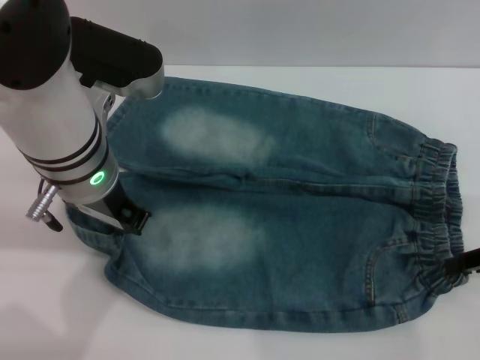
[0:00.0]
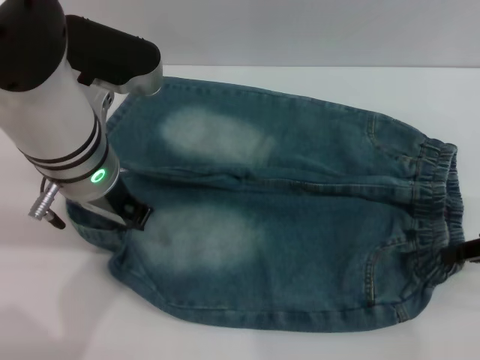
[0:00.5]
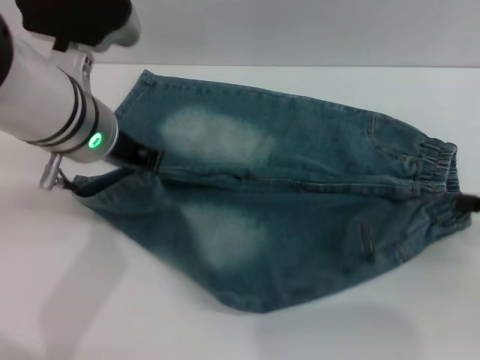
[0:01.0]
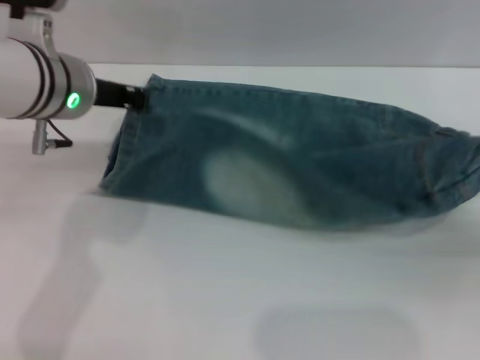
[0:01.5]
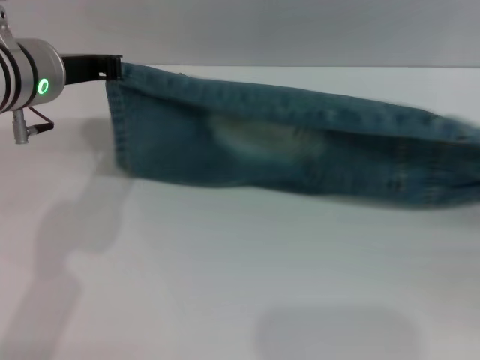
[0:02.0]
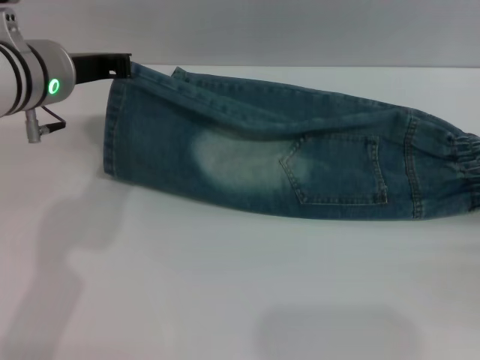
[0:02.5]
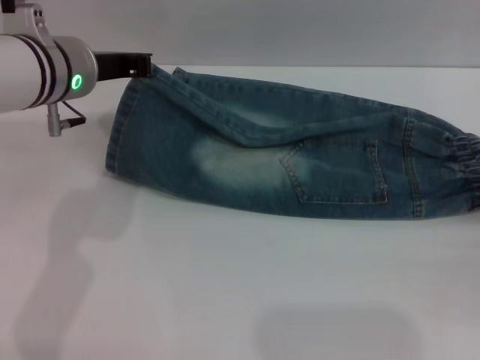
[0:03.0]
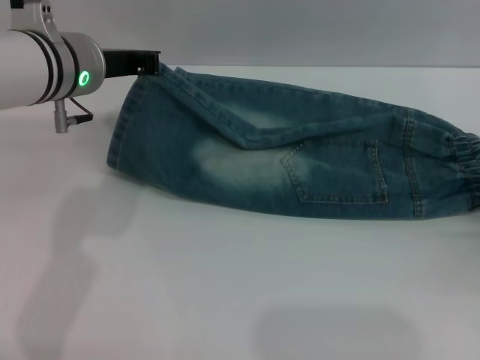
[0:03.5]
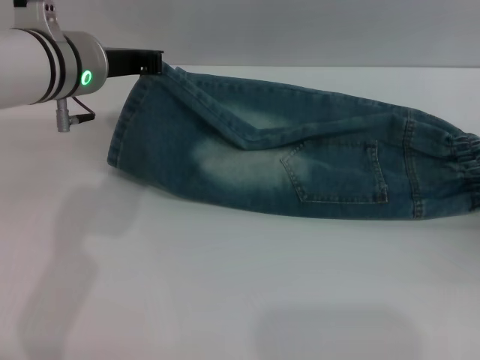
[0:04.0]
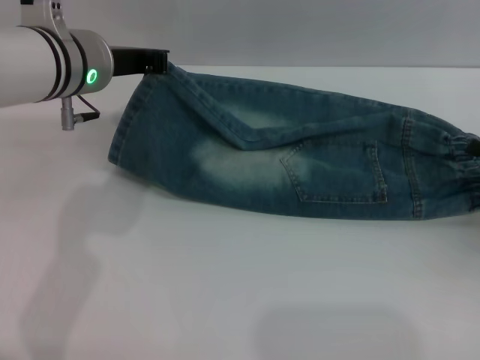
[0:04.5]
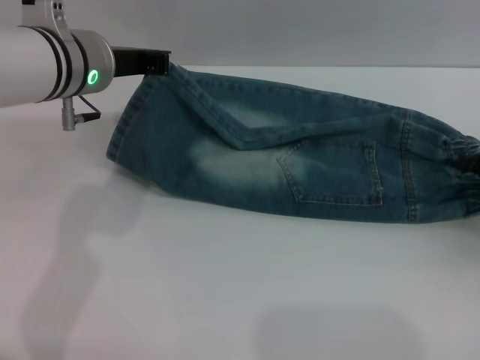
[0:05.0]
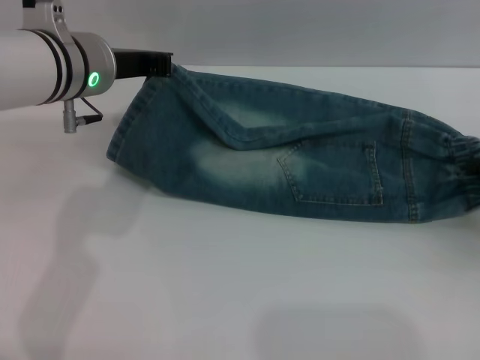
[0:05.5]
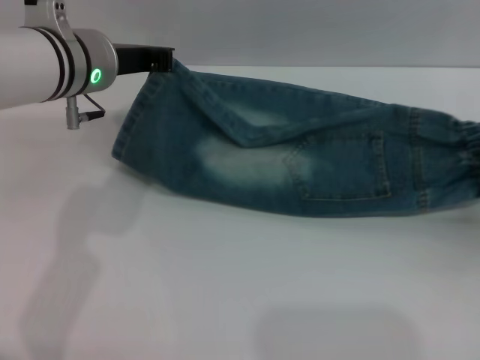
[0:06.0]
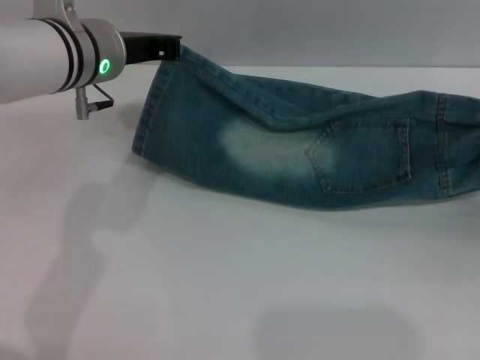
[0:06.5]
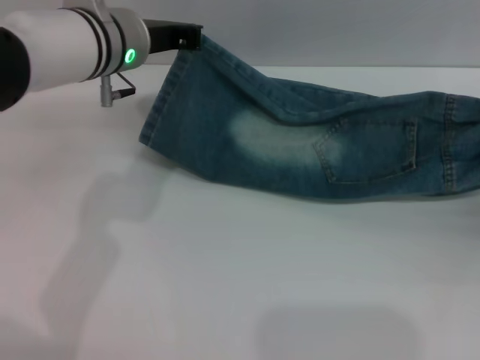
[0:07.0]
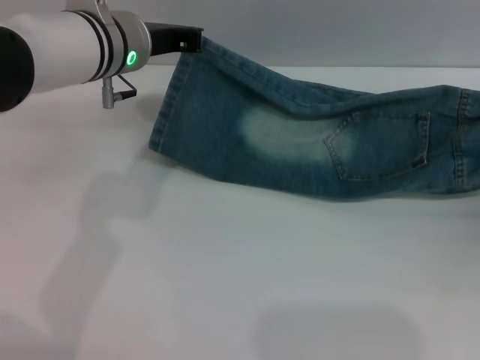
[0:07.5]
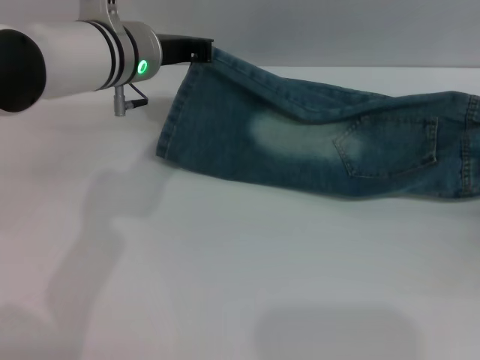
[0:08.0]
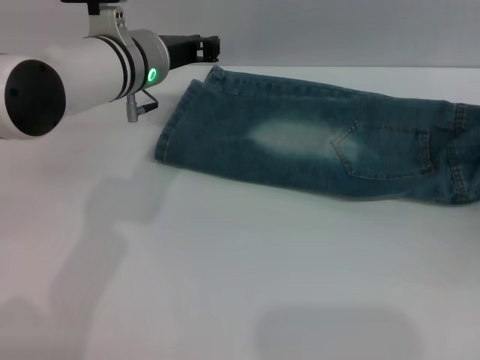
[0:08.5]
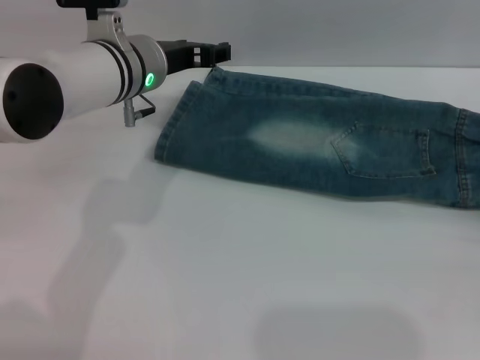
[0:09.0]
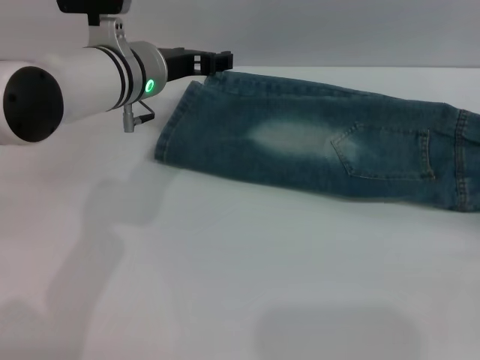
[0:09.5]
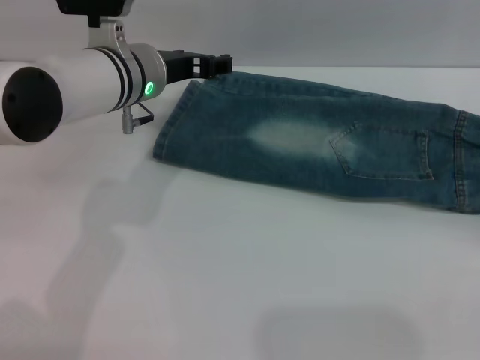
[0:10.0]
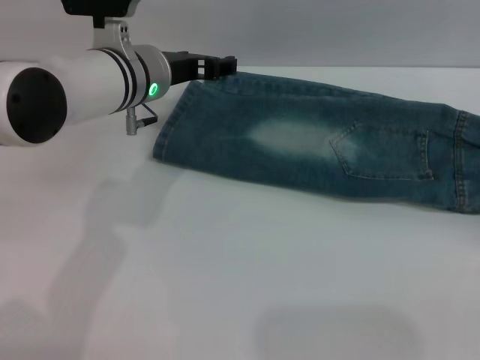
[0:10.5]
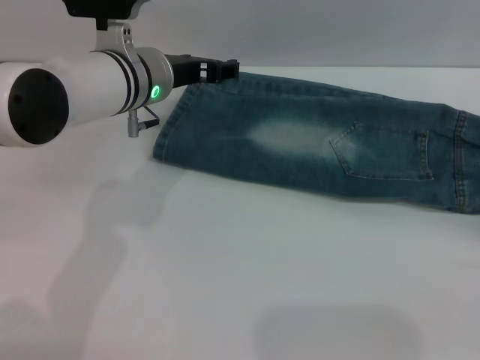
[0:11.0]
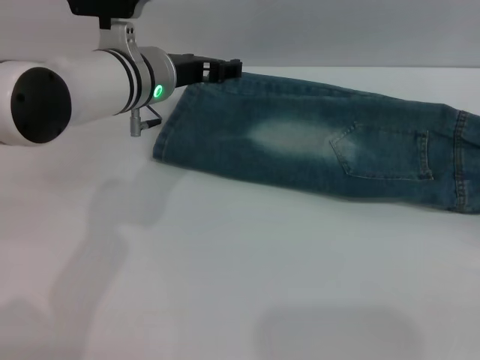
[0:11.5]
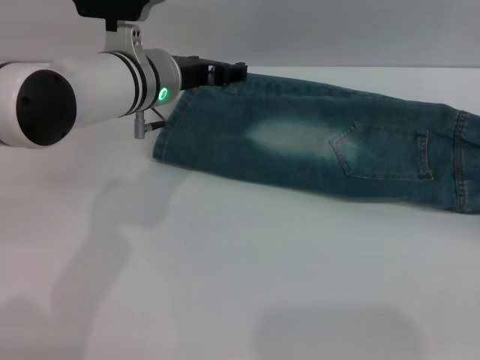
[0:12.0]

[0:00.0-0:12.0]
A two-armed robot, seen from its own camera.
Step, 0:00.0 to 0:08.5: Fold the bottom of the pants upward with both grippers.
0:00.0 to 0:02.0: The right gripper shifts approximately 10 cm to the right and backward. The left gripper is displaced to the left by approximately 5 cm.
0:02.0 to 0:04.0: The right gripper moves forward, about 5 cm, and opens its fingers.
0:04.0 to 0:06.0: The right gripper closes its fingers.
0:08.0 to 0:10.0: The left gripper opens its fingers. Meanwhile the right gripper goes about 10 cm backward, and opens its fingers.
0:10.0 to 0:12.0: The grippers make only small movements.

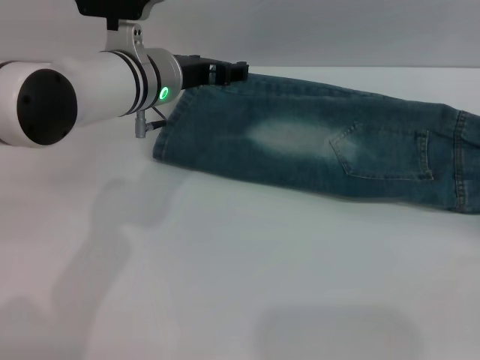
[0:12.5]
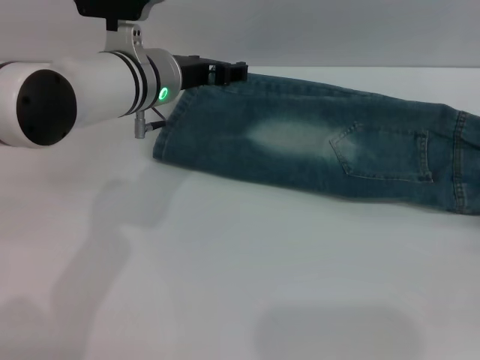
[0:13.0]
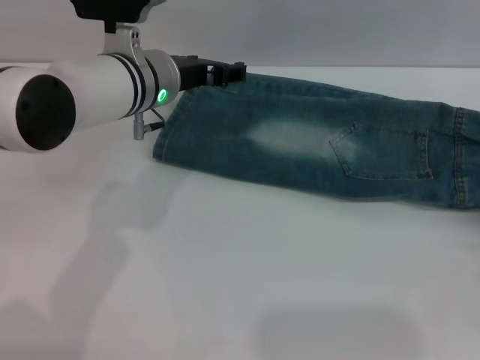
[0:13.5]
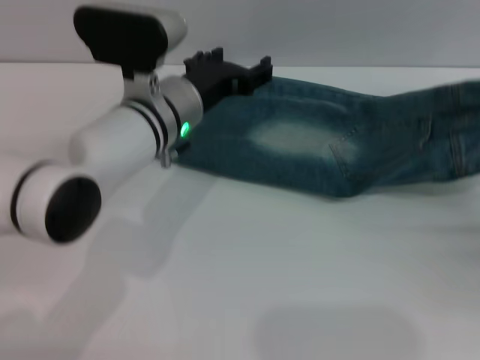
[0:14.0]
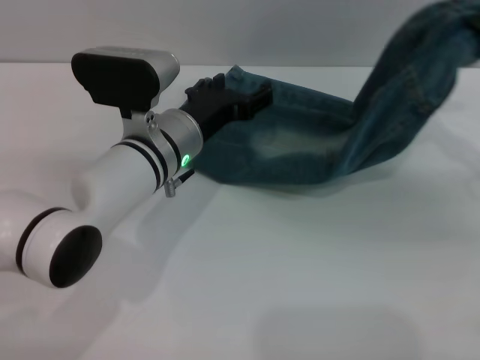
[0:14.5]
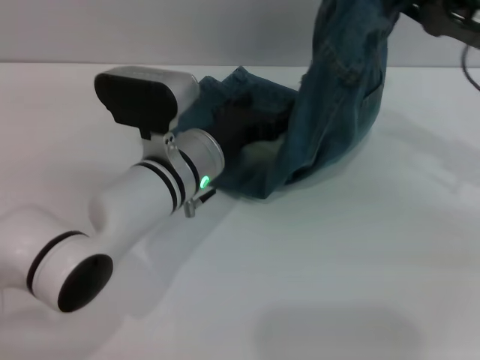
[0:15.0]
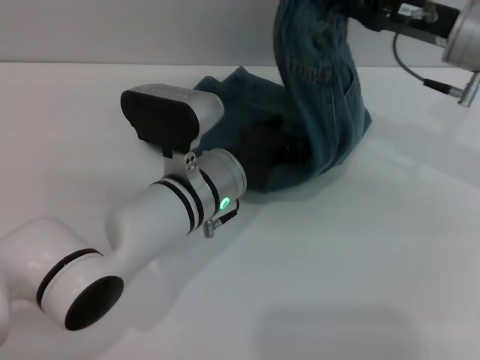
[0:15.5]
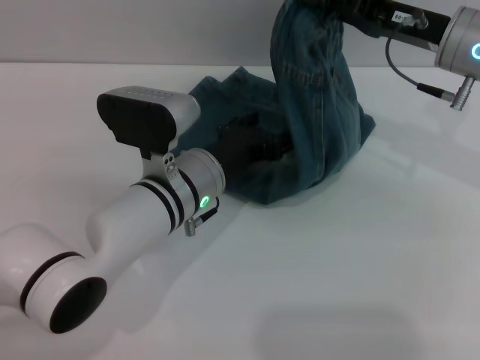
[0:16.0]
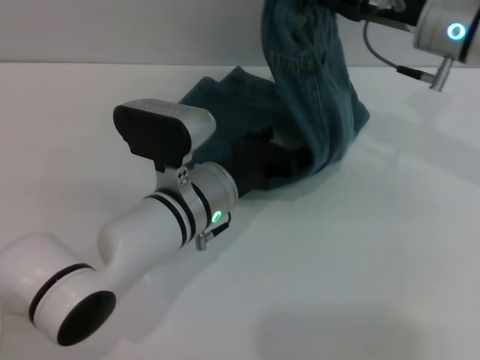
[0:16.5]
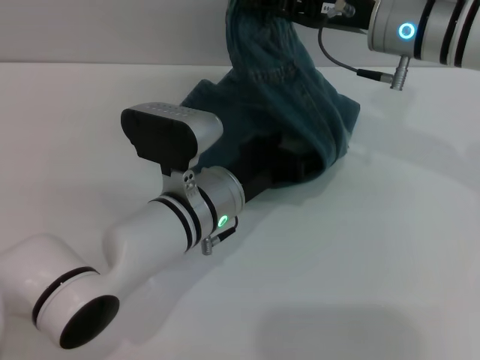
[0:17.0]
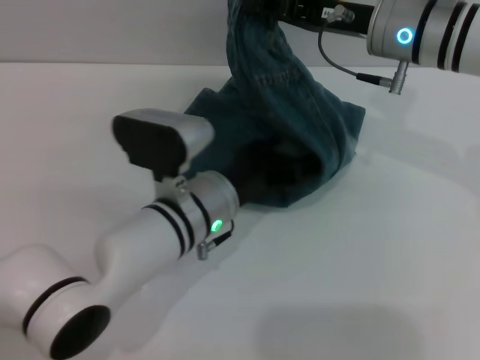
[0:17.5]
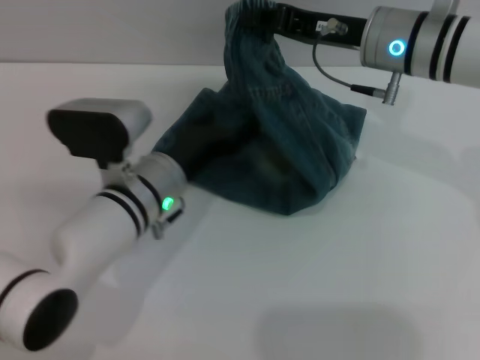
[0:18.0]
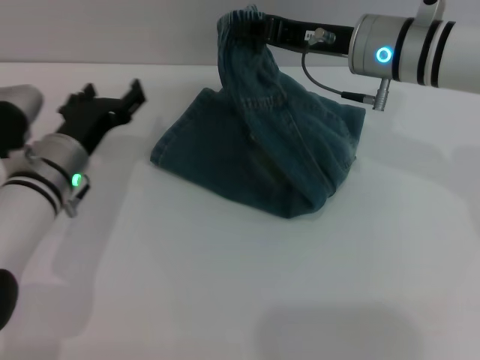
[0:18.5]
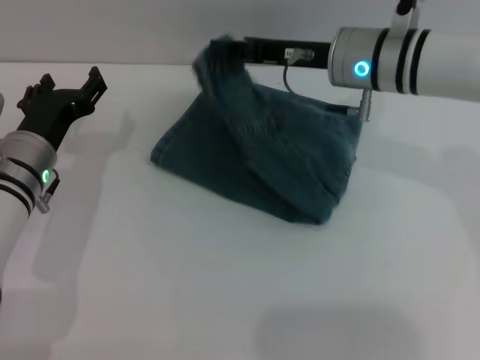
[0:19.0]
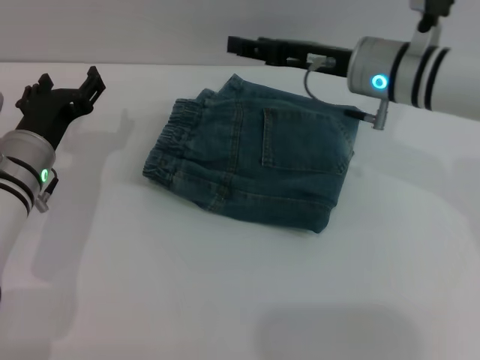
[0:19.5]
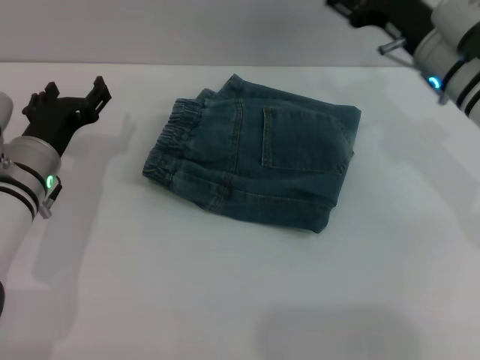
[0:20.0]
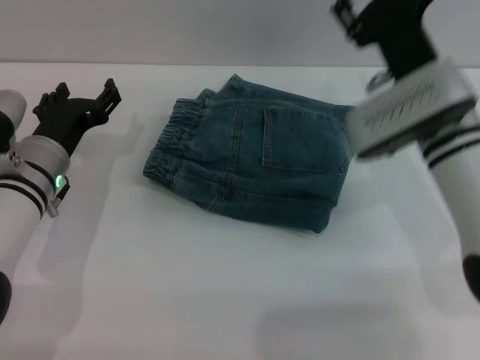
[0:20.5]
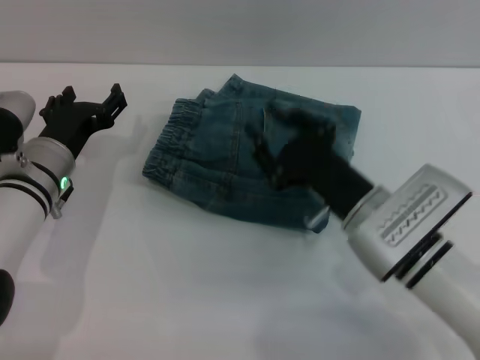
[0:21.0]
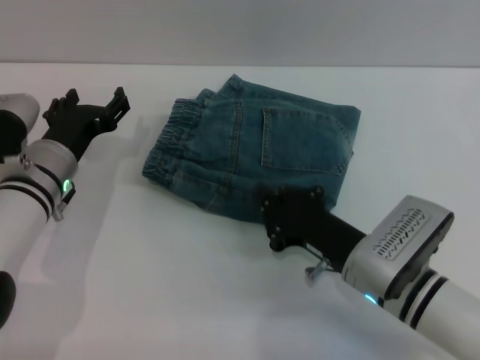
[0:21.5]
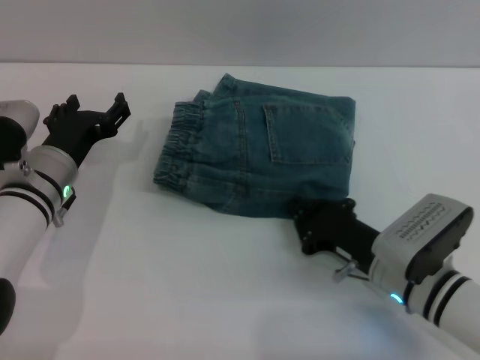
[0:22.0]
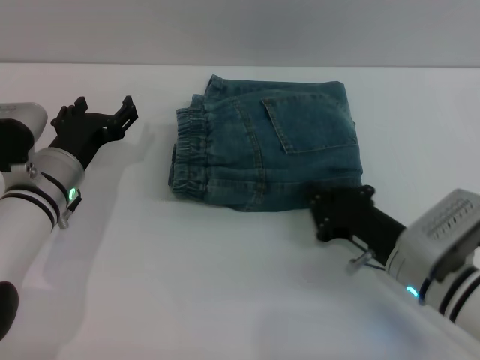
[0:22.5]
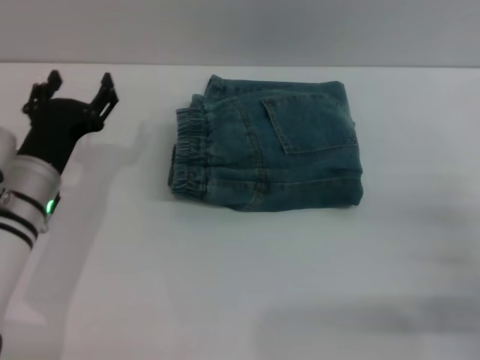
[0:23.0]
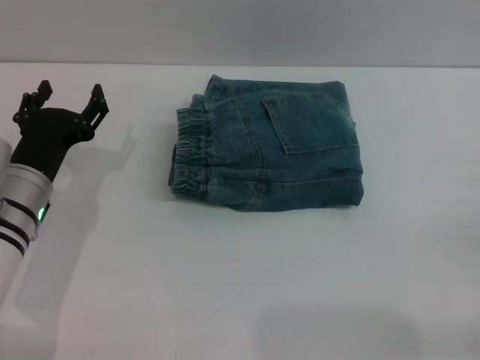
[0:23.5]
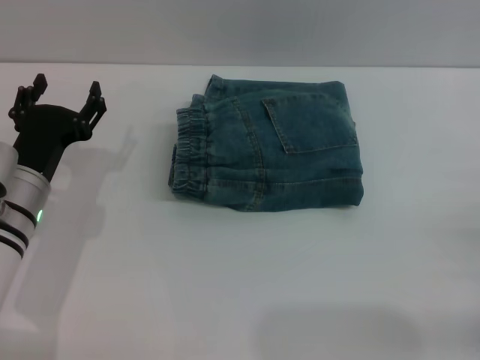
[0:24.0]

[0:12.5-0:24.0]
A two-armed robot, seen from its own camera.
Step, 0:12.5 to 0:19.5: Fold the pants from right to left with the right gripper.
Step, 0:20.0 to 0:23.0: Place the folded trousers onto the center area with the right grippers.
0:12.5 to 0:14.5: The right gripper moves upward, forward and to the left, approximately 15 cm, and closes up, while the left gripper shifts some 10 cm downward and backward.
0:14.5 to 0:16.5: The left gripper moves approximately 5 cm. Meanwhile the right gripper moves to the left and forward, some 15 cm.
0:16.5 to 0:18.5: The left gripper goes approximately 15 cm to the left; the right gripper shifts about 5 cm to the left.
0:18.5 to 0:20.0: The right gripper heads to the right, covering some 5 cm, and opens up.
0:20.0 to 0:22.0: The right gripper moves backward and downward, roughly 20 cm, and closes its fingers.
0:22.0 to 0:24.0: The right gripper moves to the right and backward, some 20 cm, and opens its fingers.

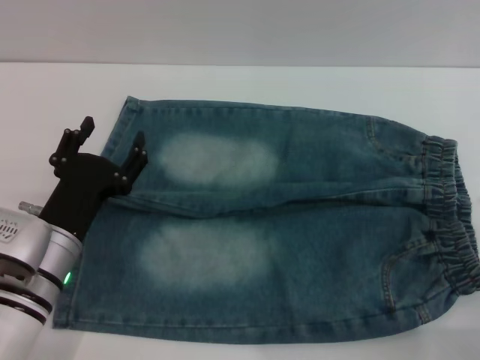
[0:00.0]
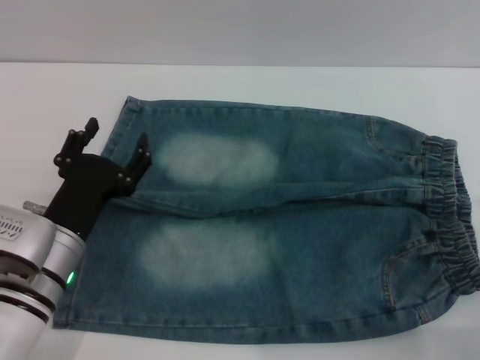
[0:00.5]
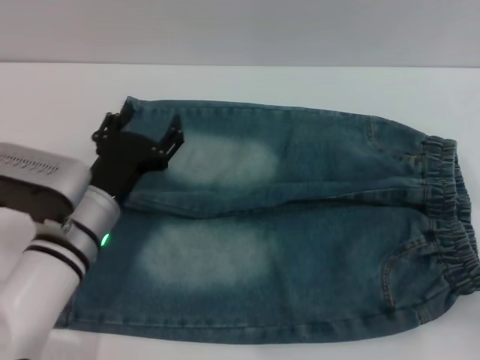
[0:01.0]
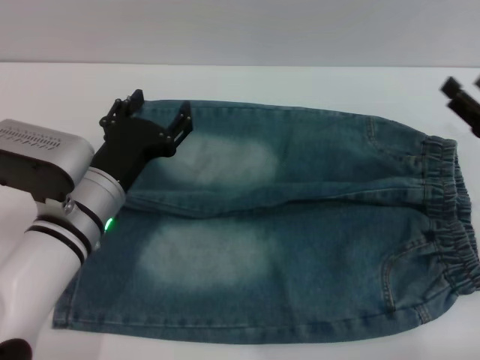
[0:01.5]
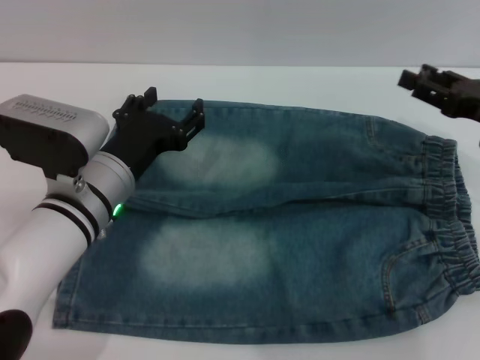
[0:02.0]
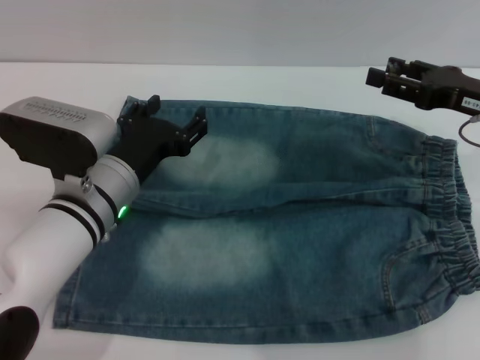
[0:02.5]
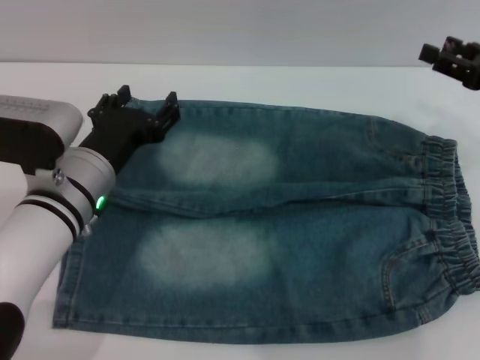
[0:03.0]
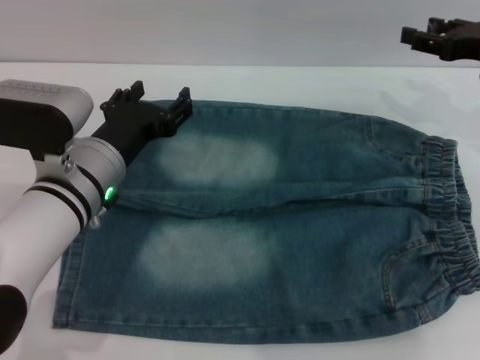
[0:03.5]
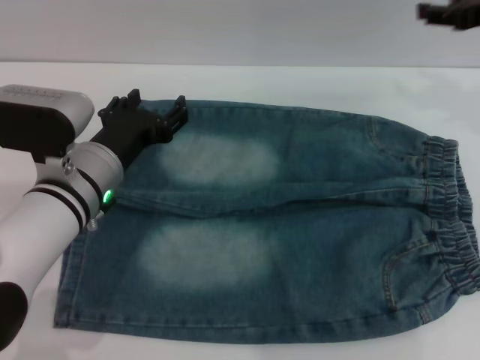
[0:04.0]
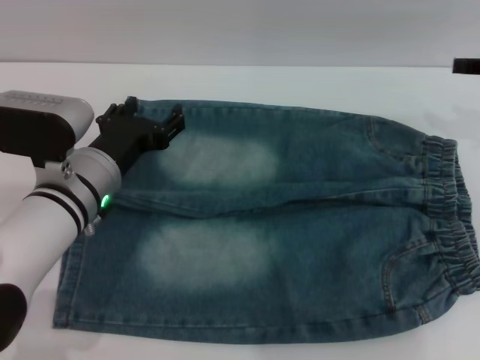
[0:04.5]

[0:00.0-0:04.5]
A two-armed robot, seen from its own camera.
0:00.0 to 0:02.0: The left gripper heads forward, covering some 5 cm. The right gripper goes about 15 cm forward and upward.
0:02.0 to 0:04.5: The right gripper goes approximately 10 cm upward.
